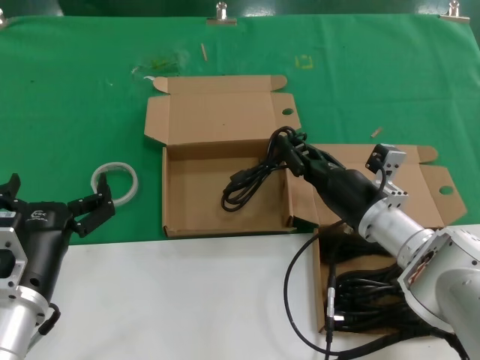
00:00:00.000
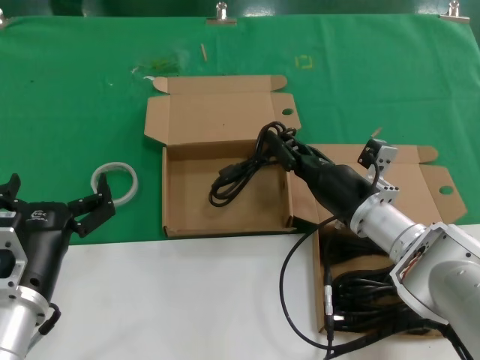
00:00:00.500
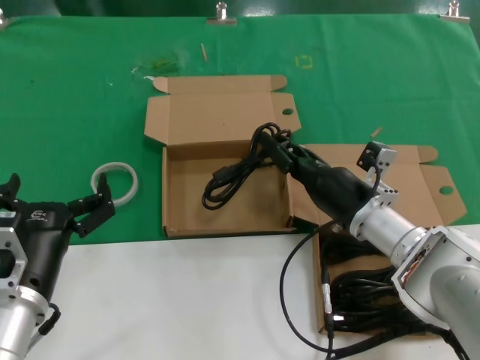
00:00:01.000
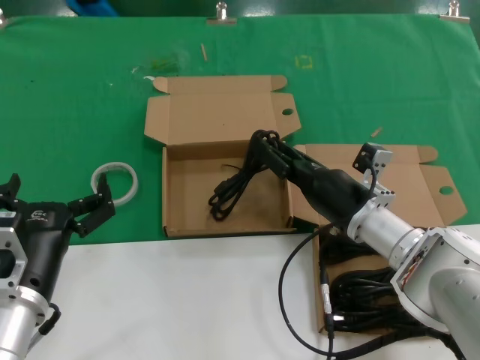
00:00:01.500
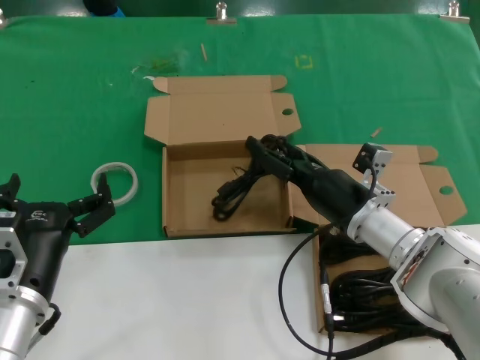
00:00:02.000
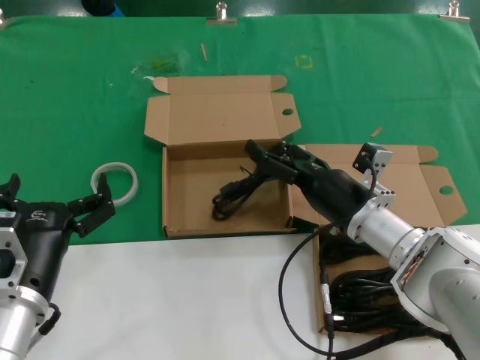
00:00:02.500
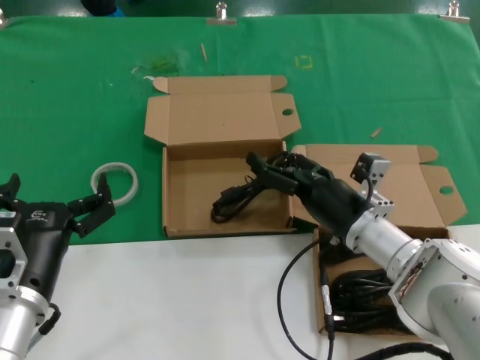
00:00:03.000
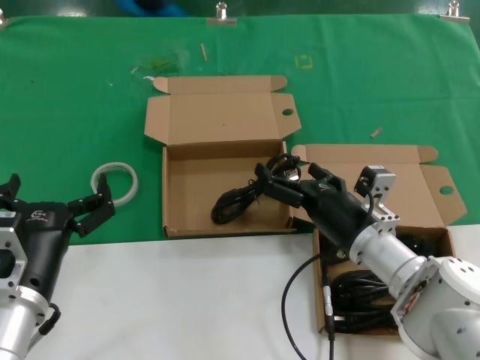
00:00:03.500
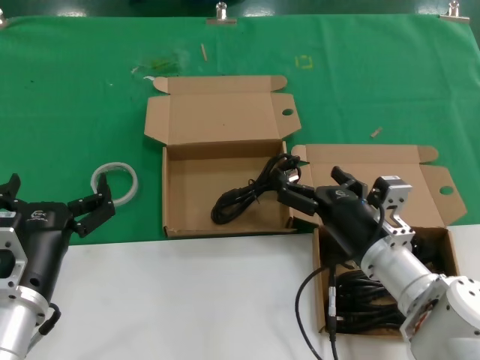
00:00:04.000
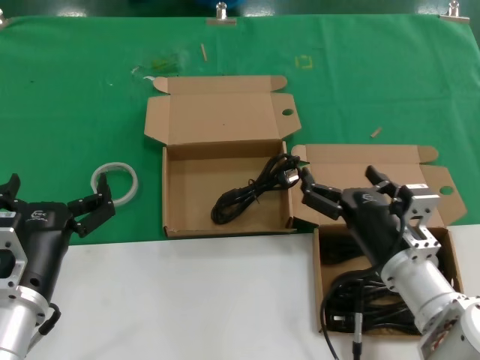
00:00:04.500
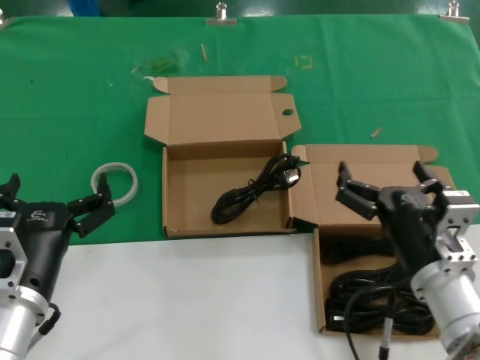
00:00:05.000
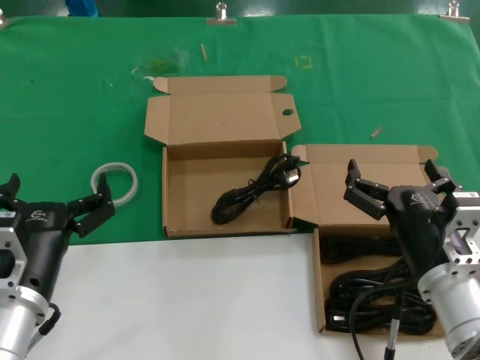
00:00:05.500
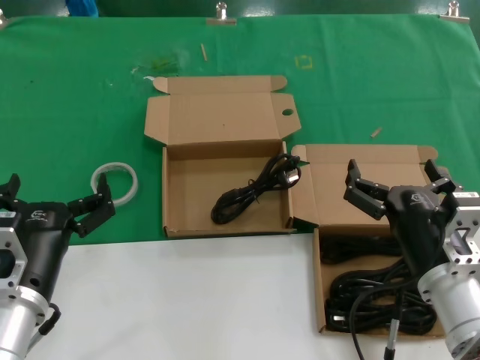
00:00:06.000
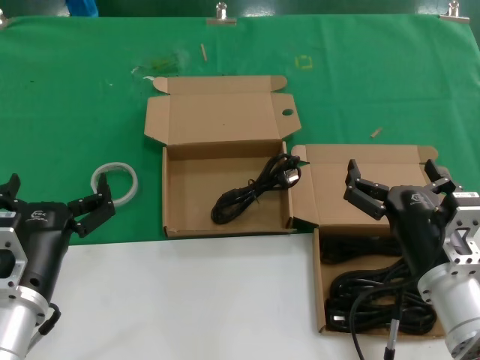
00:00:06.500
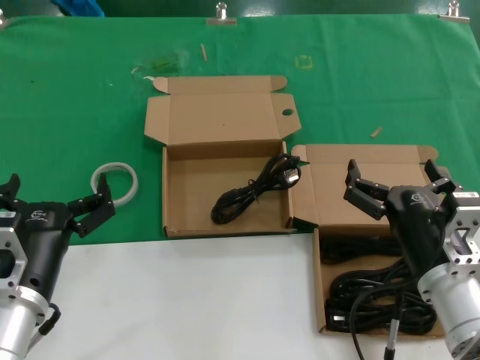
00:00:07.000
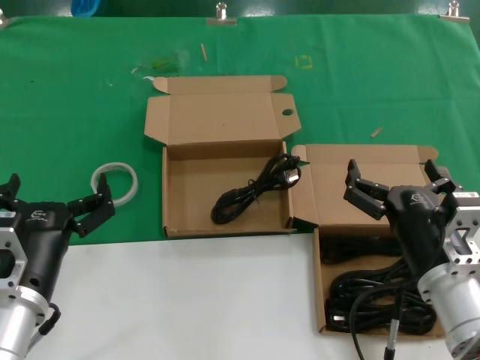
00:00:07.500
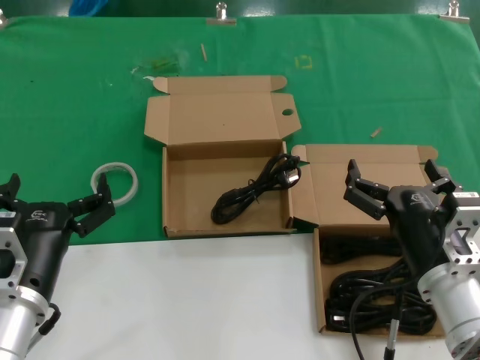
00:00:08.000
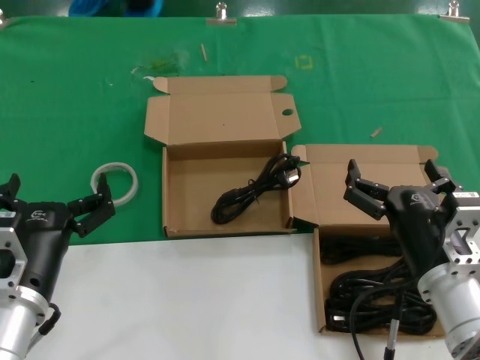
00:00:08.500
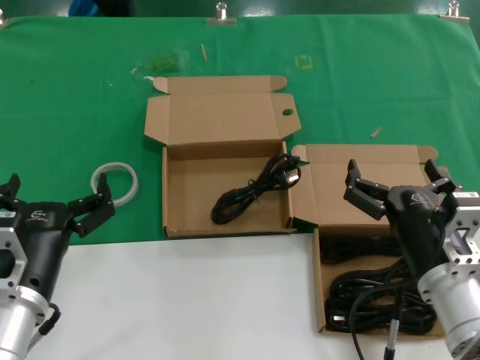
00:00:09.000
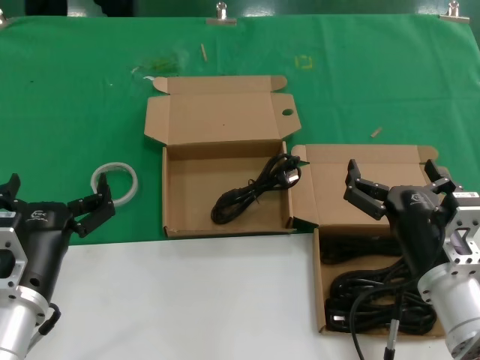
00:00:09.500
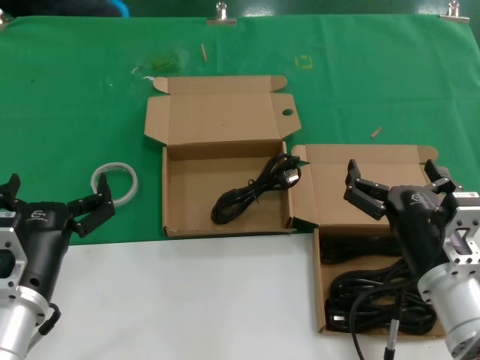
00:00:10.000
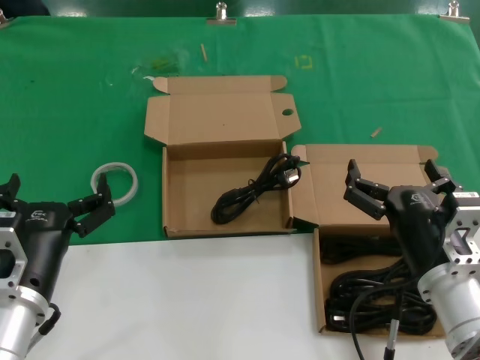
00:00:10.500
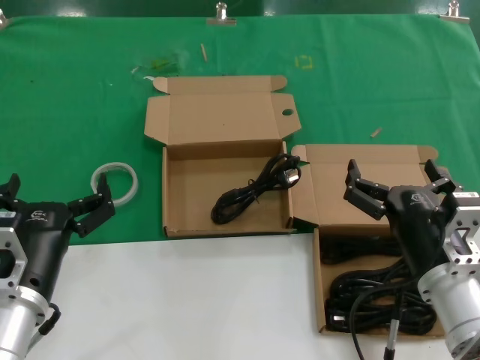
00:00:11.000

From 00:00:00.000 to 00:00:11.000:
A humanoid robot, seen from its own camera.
Task of the whole recording: take the parts from the box containing them and put them into an empty box.
Step, from 00:00:00.000 to 00:00:03.000: Place the data cable in the another box.
From 00:00:00.000 to 00:00:03.500: There are only small adjustments of the hands.
From 00:00:03.500 to 00:00:05.500: The right hand moves backward, approximately 10 cm.
From 00:00:05.500 to 00:00:11.000: Both hands stay about where they are.
